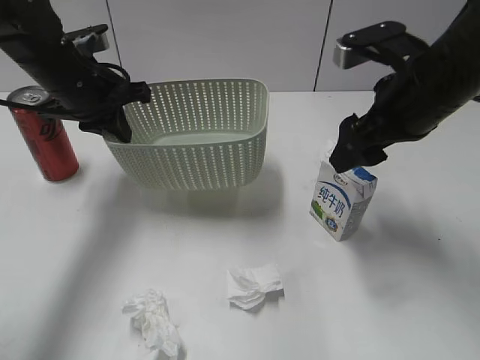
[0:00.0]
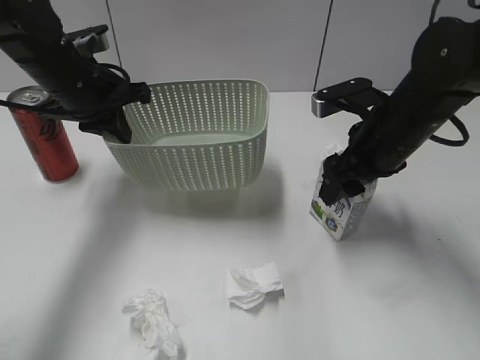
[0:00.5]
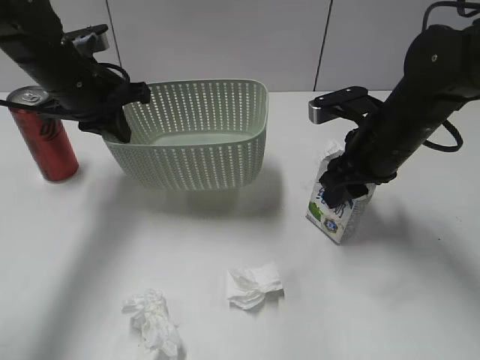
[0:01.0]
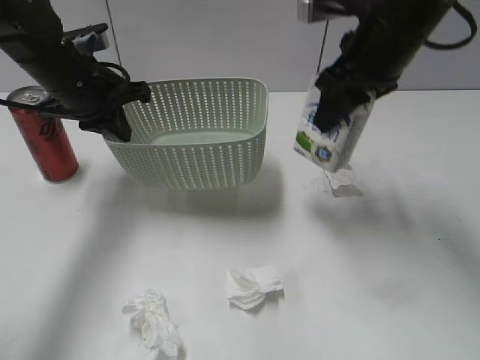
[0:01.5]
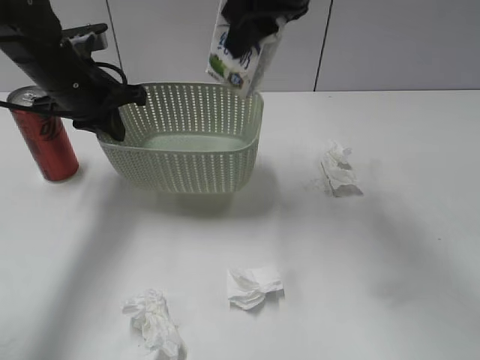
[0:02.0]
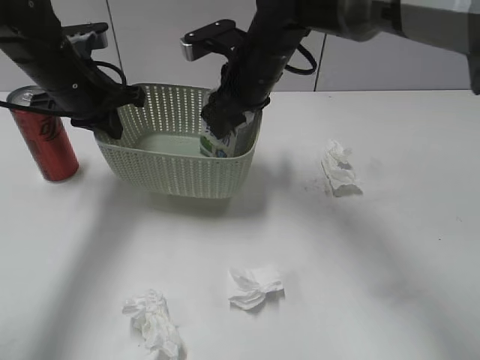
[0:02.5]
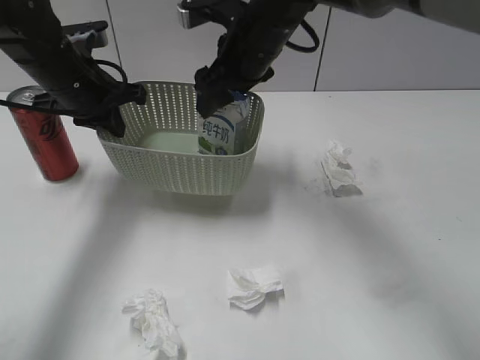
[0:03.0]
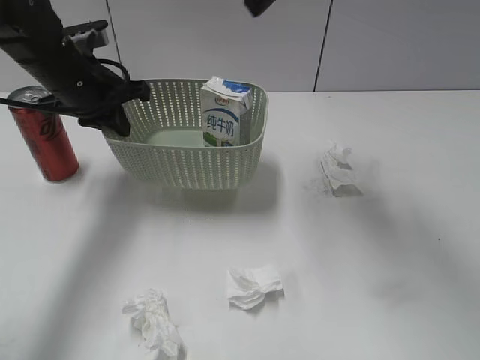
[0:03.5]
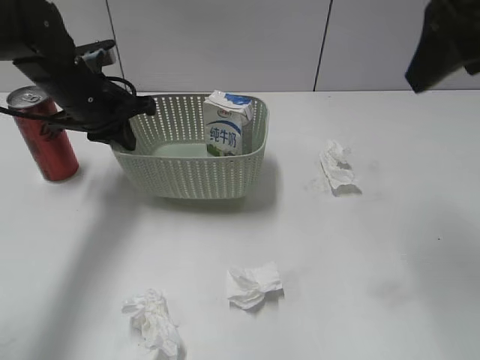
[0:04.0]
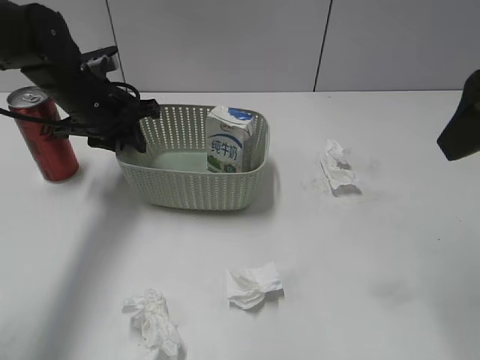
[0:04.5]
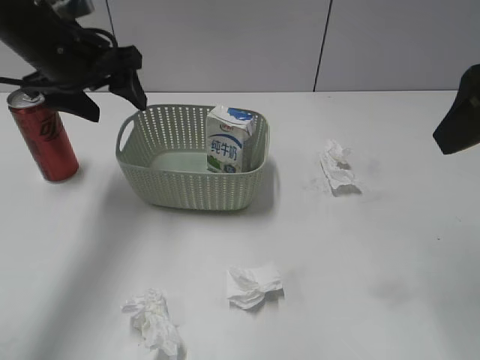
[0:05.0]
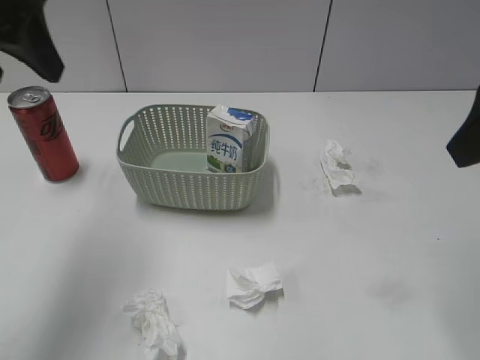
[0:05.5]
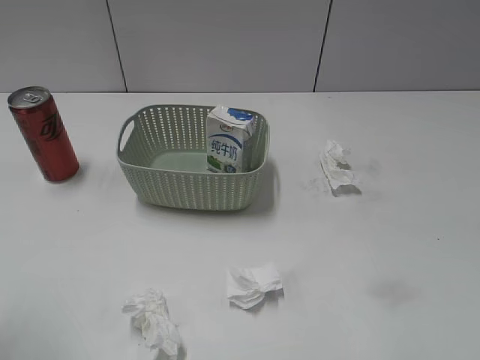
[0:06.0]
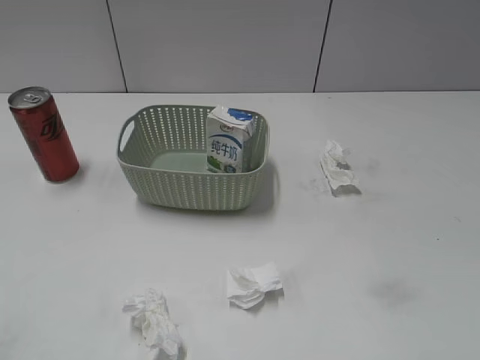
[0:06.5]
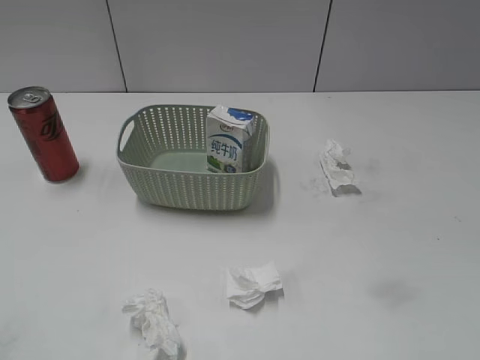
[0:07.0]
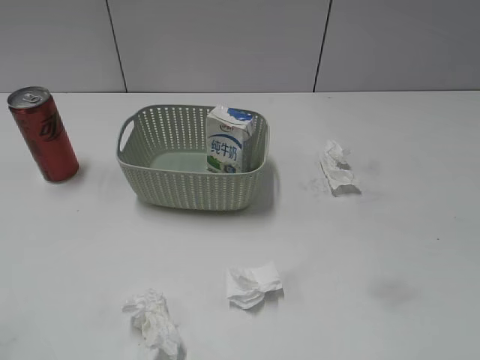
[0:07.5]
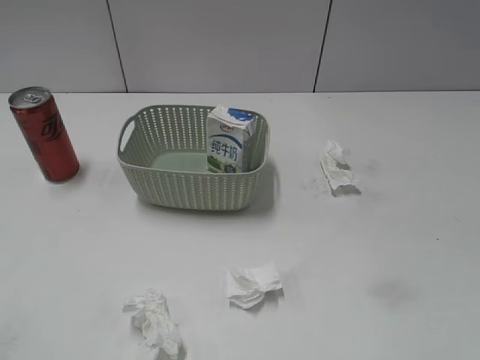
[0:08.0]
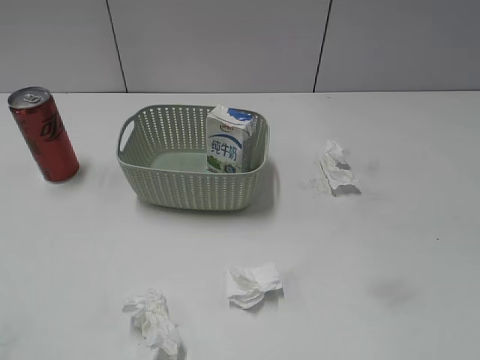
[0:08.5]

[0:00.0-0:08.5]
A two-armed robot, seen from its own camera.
Step, 0:01.5 to 0:03.0: Place the milk in the basket with right gripper.
Step, 0:03.5 to 0:04.5: Place the basket on the table with left gripper.
0:00.0 to 0:02.0: The right gripper moves to the left, upward and forward, roughly 15 cm, and closes up.
0:02.0 to 0:04.0: The right gripper goes roughly 15 cm to the right and backward, and opens.
0:04.0 to 0:06.5: The left gripper travels backward by some 35 cm, and opens its fingers, while the right gripper travels backward and downward by roughly 25 cm.

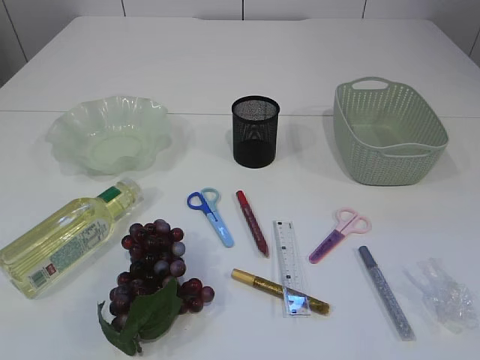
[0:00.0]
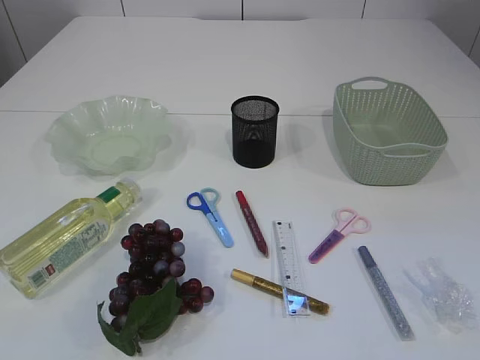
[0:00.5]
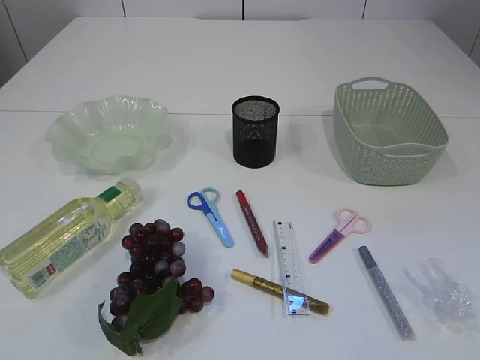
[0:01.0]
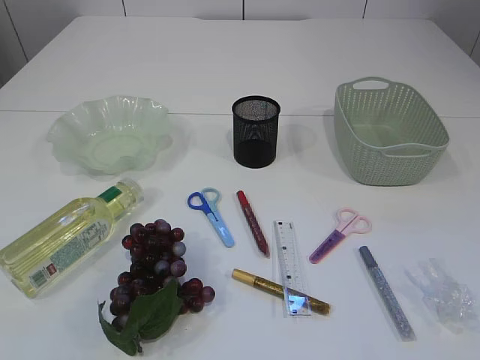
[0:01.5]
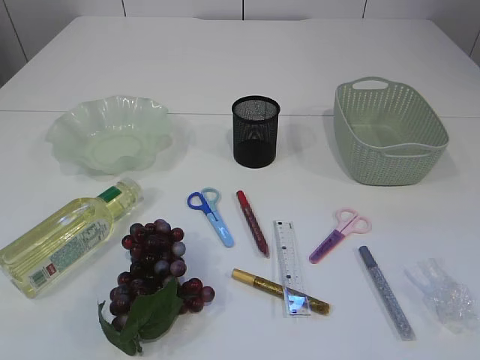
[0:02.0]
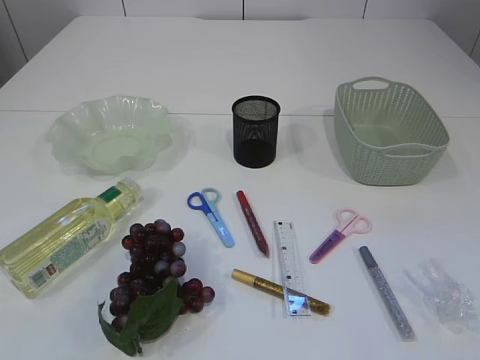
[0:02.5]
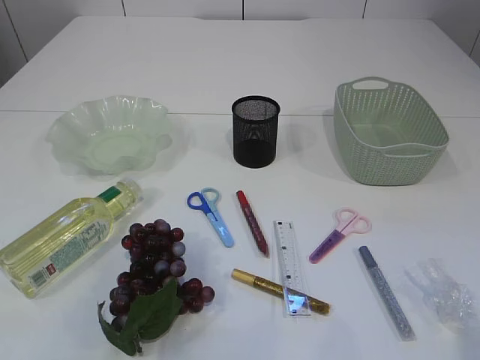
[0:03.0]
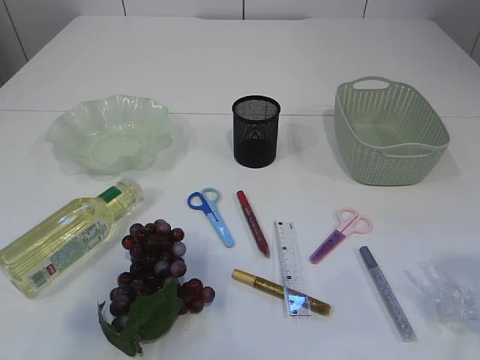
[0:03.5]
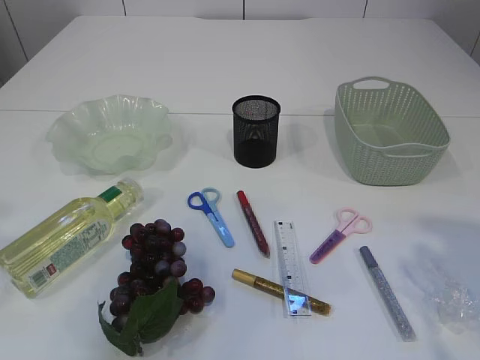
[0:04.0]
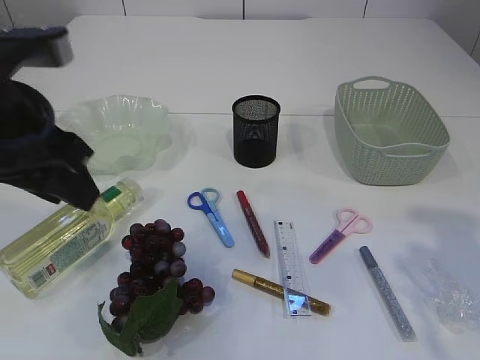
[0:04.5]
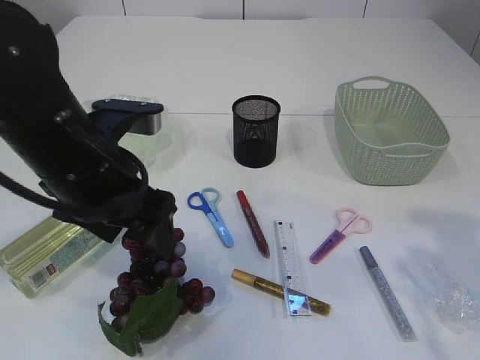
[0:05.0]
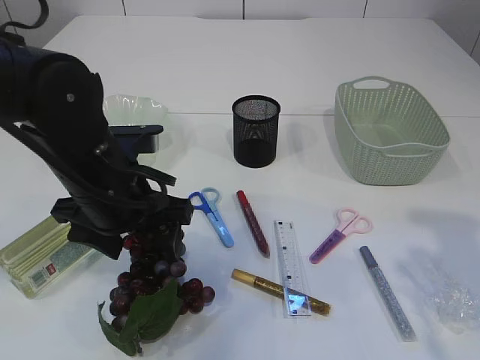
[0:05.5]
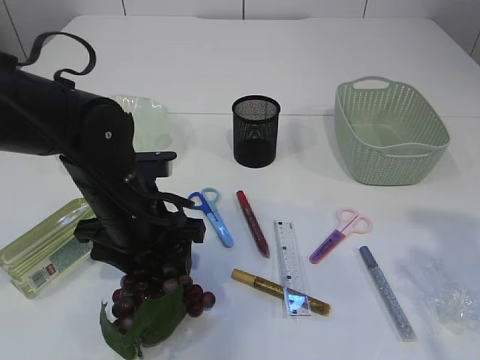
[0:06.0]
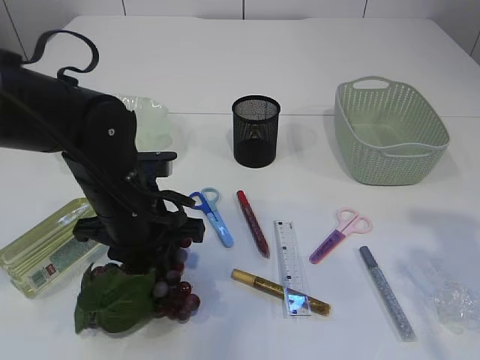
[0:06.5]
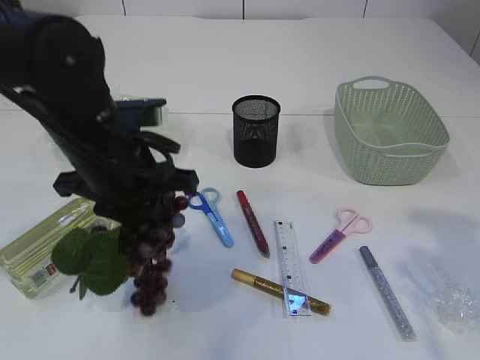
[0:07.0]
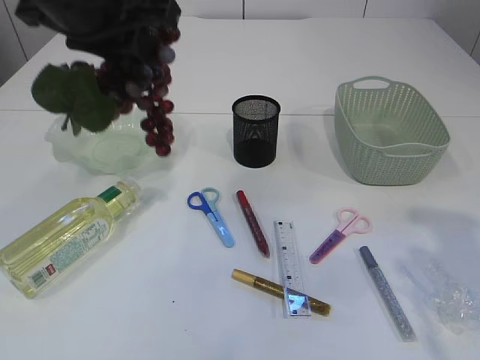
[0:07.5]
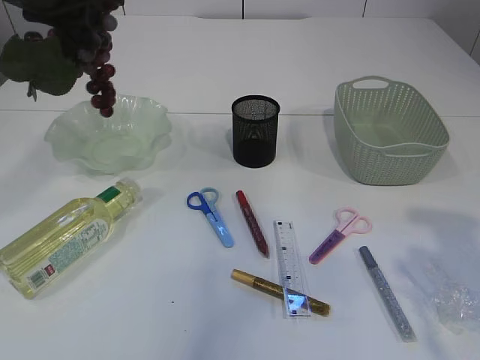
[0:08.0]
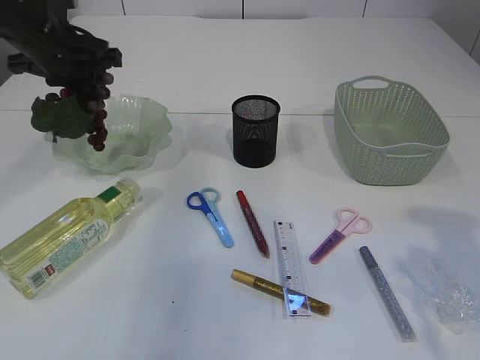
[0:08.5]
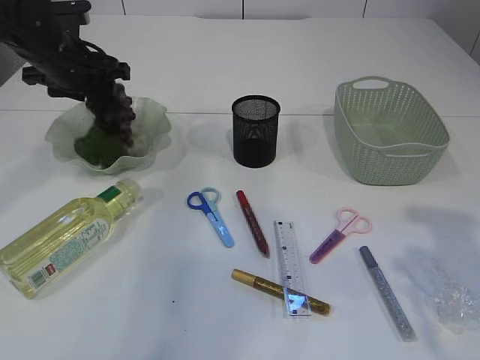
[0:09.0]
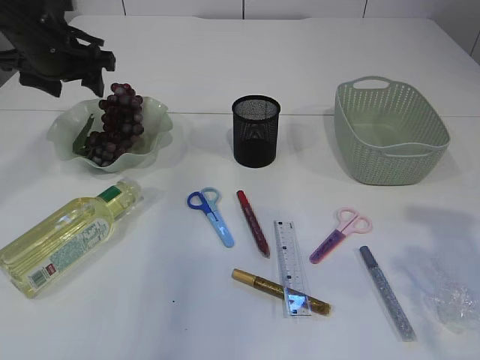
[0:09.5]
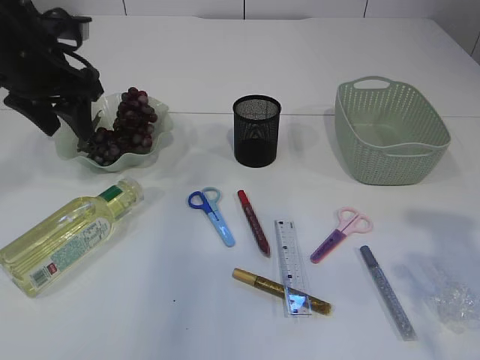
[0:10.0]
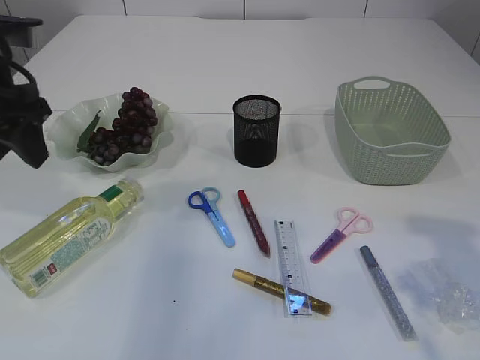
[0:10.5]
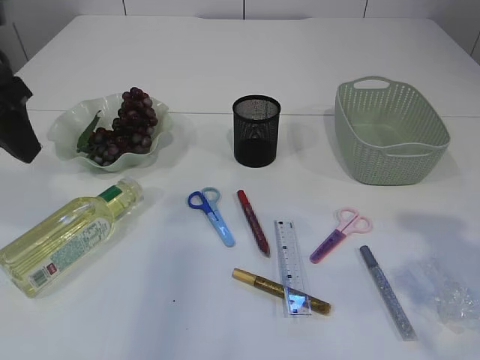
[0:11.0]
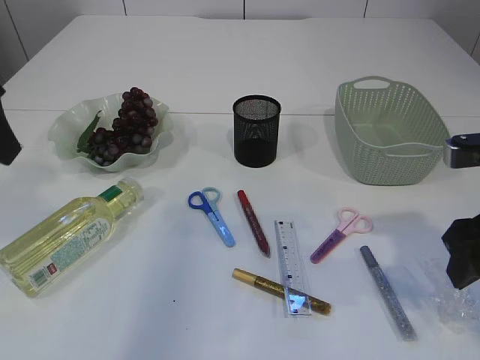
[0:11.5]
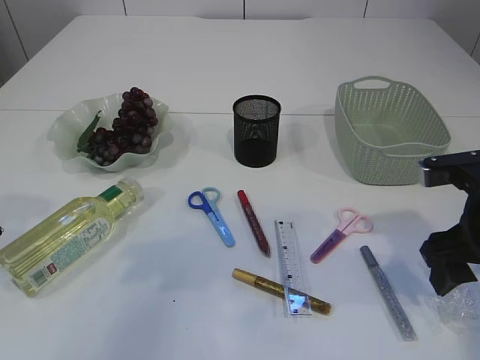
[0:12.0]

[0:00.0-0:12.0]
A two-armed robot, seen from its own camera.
Step, 0:00.0 to 0:07.0: Pick up the grapes.
Step, 0:07.5 to 0:09.5: Place the grapes in the plate.
0:02.0 to 0:04.0: Both grippers travel together forward, roughly 20 cm.
0:04.0 to 0:06.0: The left gripper heads downward, to the right and forward, covering approximately 25 cm, and opens its fingers.
0:06.0 to 0:08.0: The left gripper goes about 25 cm upward and forward, and closes.
0:08.0 to 0:10.0: The left gripper is displaced downward by about 10 cm, and opens up.
0:10.0 to 0:12.0: The right gripper moves downward and forward, some 10 cm. Meanwhile the left gripper travels backward by about 15 cm.

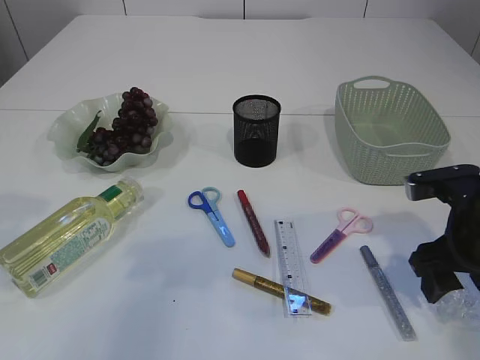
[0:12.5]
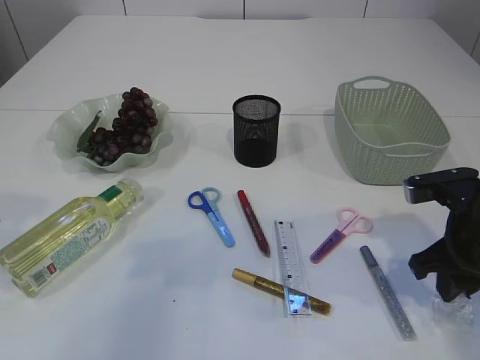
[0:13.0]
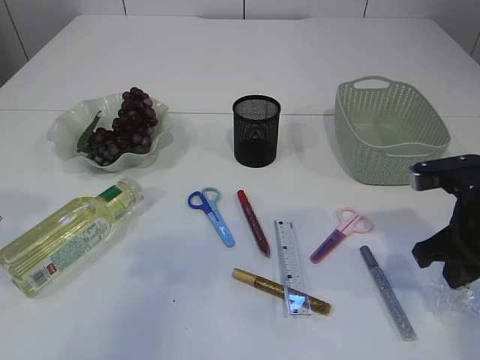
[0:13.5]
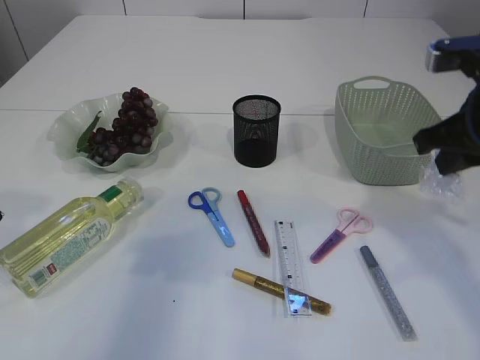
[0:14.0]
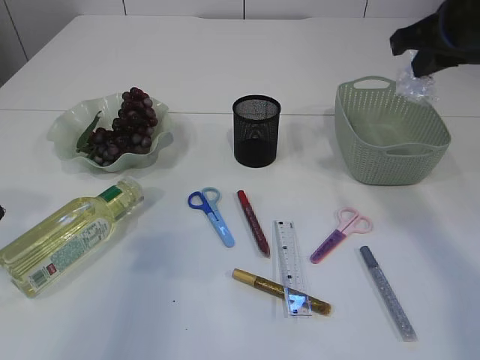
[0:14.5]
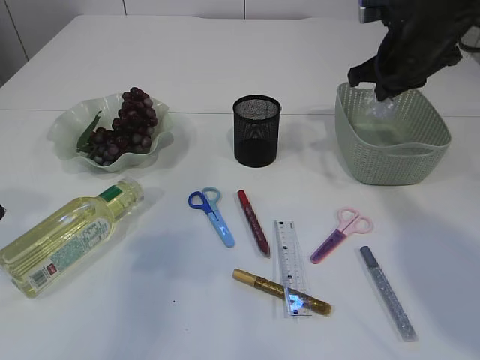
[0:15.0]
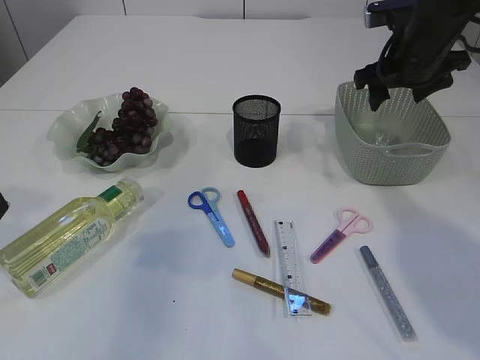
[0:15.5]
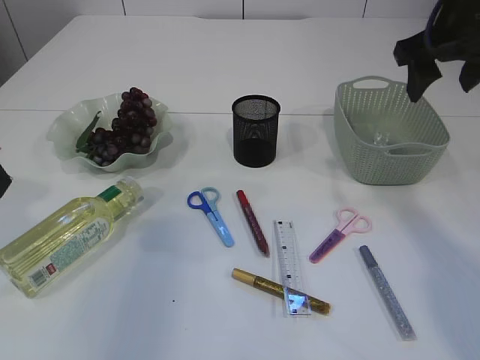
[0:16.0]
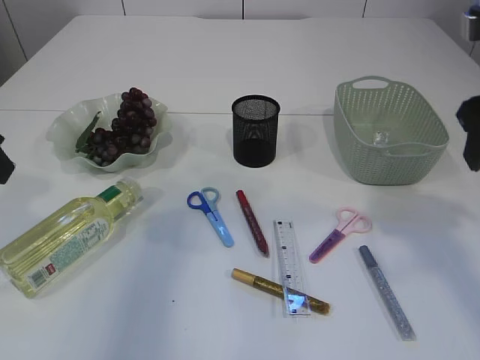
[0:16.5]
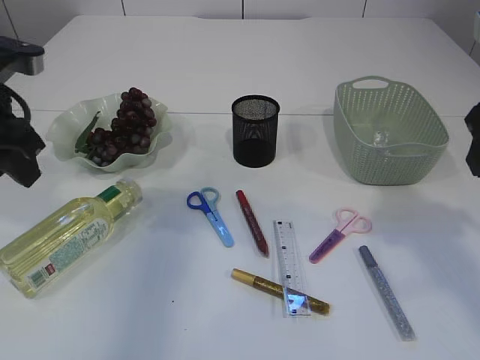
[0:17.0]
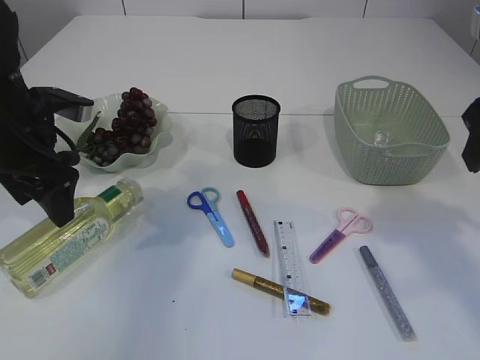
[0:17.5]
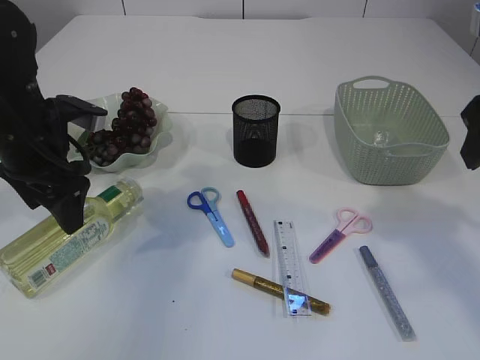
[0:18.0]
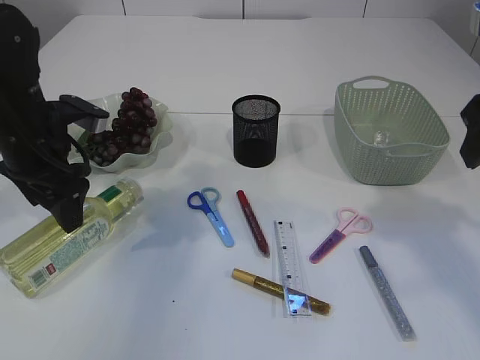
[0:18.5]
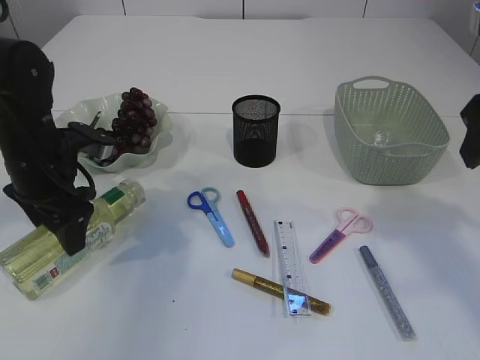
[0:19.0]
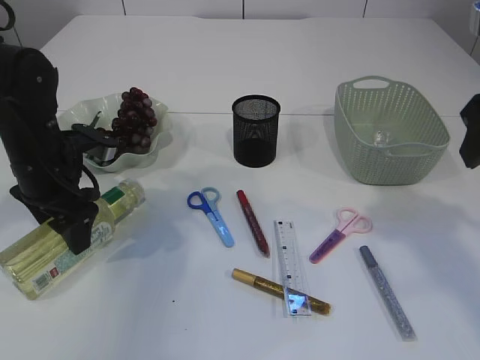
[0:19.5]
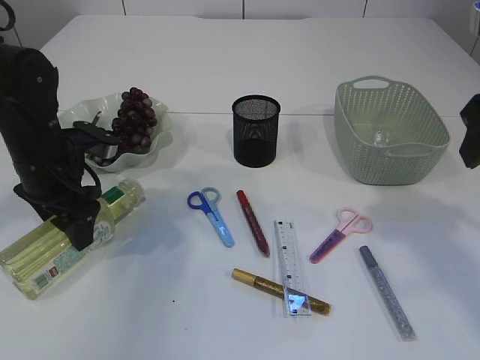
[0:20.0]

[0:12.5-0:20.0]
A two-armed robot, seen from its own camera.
Step, 0:14.0 to 0:15.5: Place the plastic in the basket.
0:12.5 to 0:14.5: The right gripper travels upward and forward by about 20 cm, and closes its fingers.
0:14.5 to 0:16.5: The right gripper travels backward by about 10 cm, and opens up.
0:16.5 to 0:18.0: The left gripper goes about 15 cm downward and forward, and opens.
0:18.0 to 0:20.0: The grippers stay close to where they were, moving slightly.
